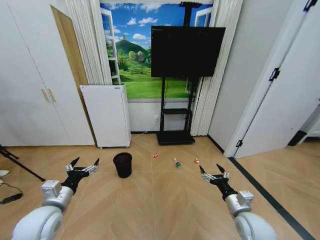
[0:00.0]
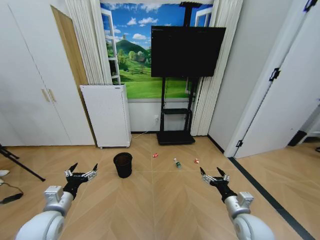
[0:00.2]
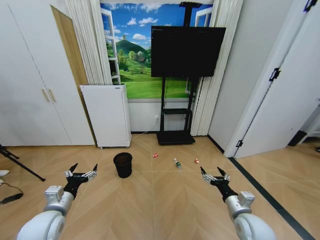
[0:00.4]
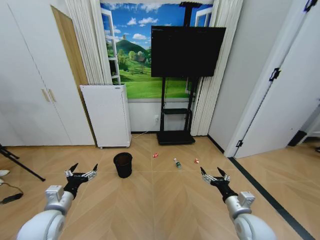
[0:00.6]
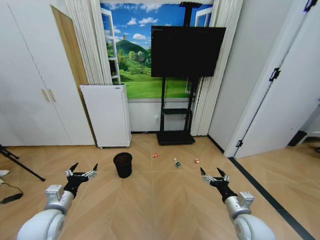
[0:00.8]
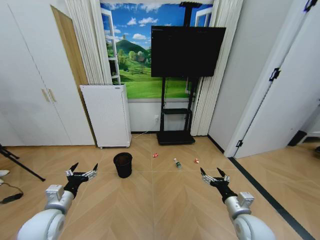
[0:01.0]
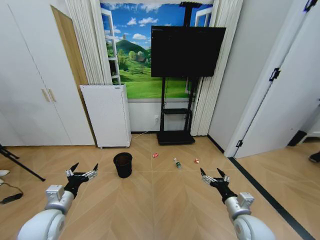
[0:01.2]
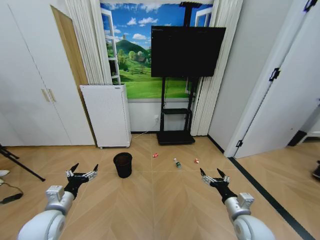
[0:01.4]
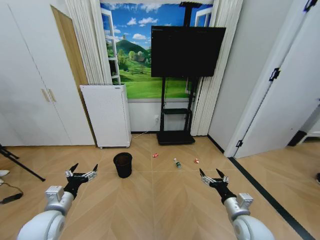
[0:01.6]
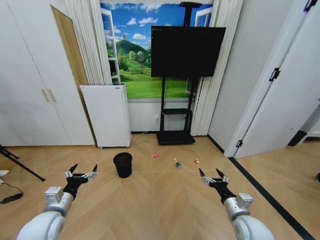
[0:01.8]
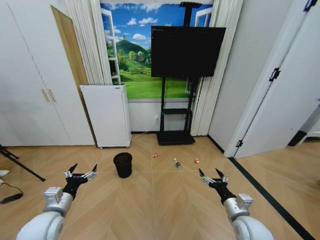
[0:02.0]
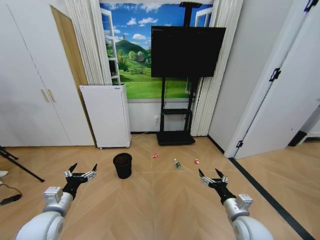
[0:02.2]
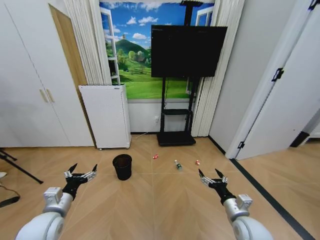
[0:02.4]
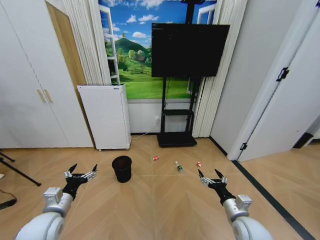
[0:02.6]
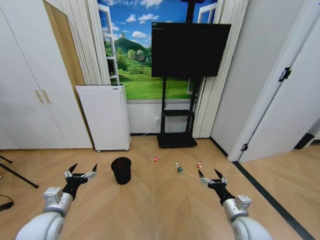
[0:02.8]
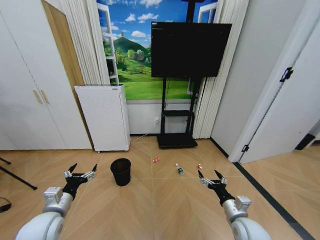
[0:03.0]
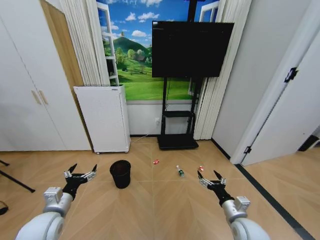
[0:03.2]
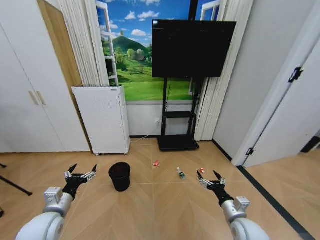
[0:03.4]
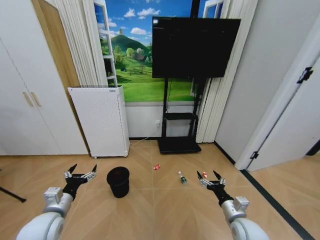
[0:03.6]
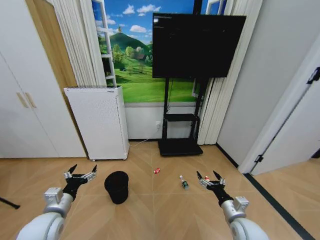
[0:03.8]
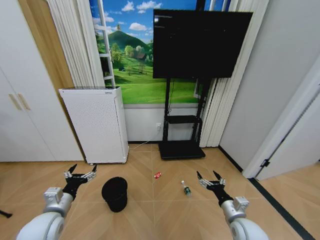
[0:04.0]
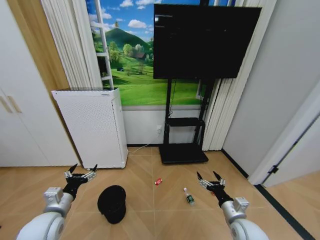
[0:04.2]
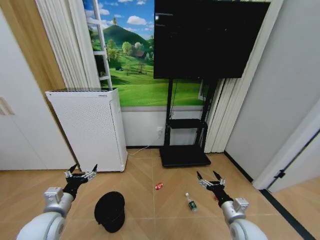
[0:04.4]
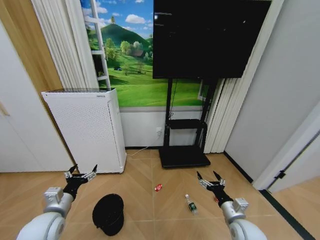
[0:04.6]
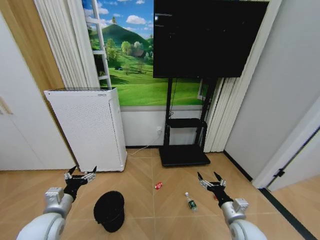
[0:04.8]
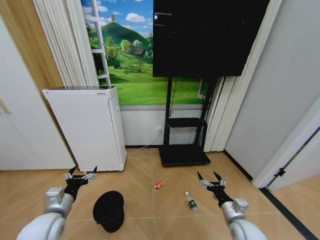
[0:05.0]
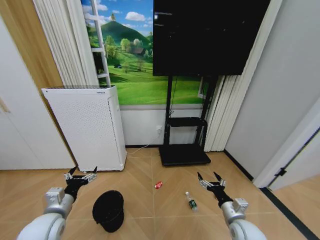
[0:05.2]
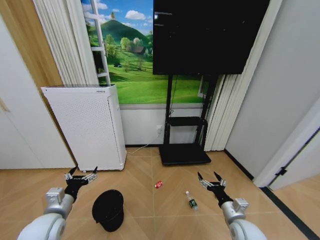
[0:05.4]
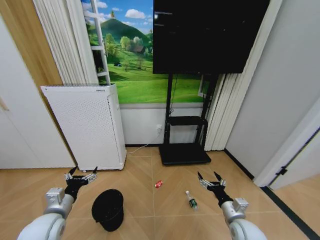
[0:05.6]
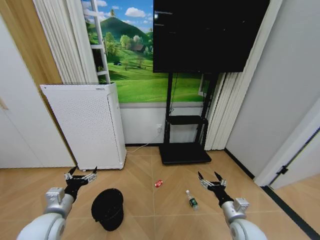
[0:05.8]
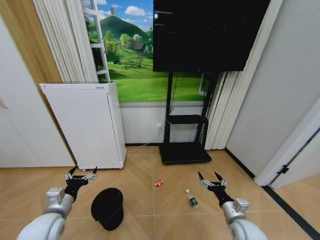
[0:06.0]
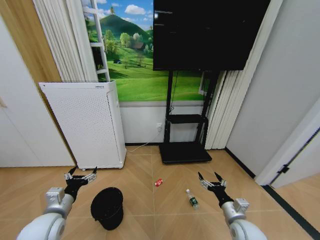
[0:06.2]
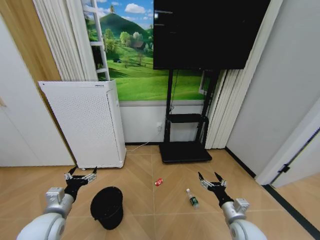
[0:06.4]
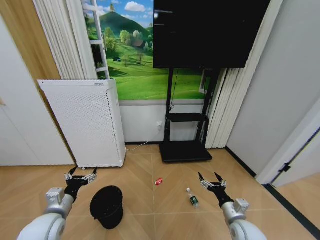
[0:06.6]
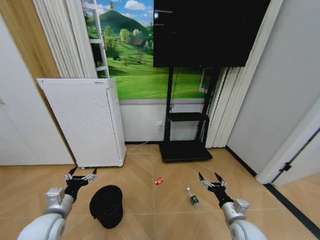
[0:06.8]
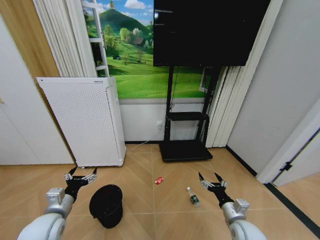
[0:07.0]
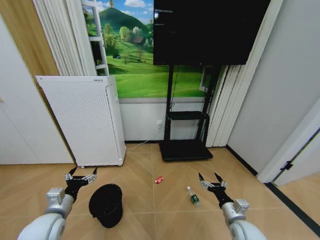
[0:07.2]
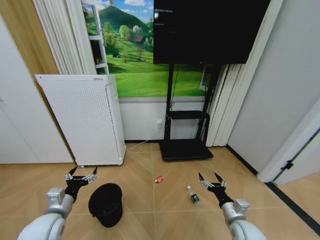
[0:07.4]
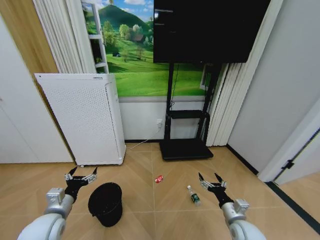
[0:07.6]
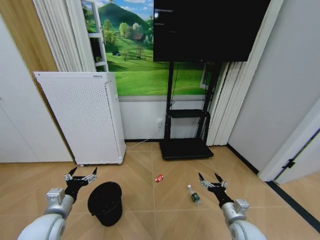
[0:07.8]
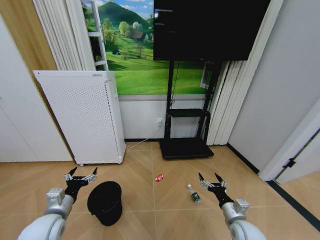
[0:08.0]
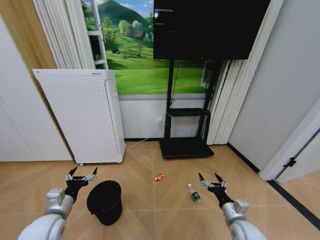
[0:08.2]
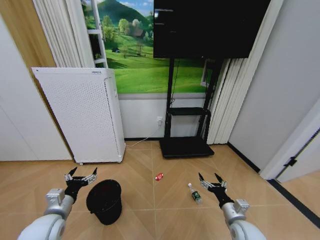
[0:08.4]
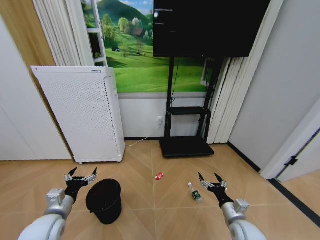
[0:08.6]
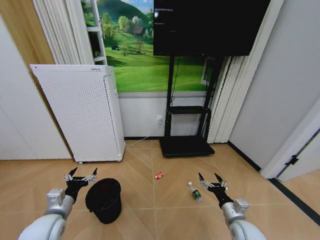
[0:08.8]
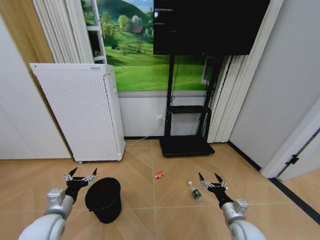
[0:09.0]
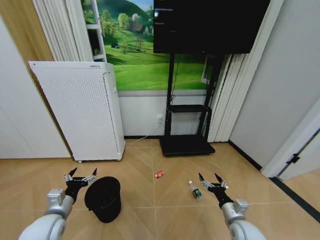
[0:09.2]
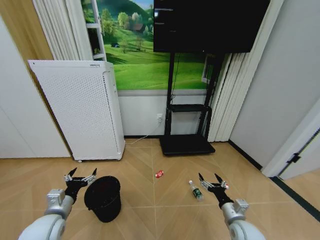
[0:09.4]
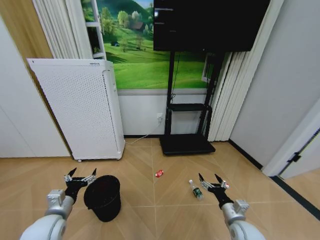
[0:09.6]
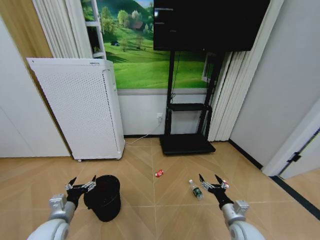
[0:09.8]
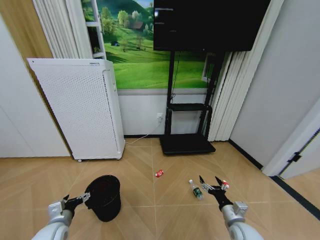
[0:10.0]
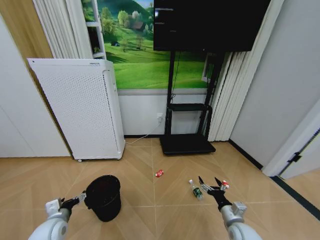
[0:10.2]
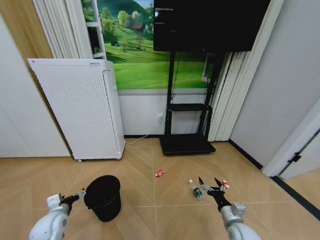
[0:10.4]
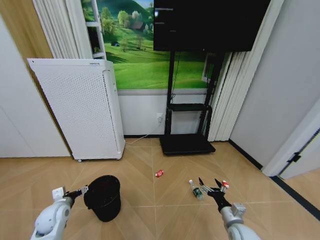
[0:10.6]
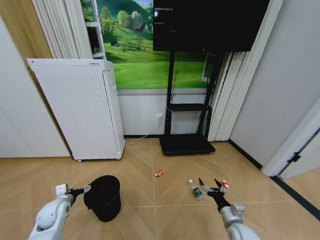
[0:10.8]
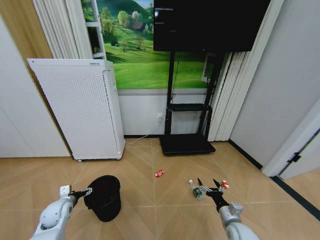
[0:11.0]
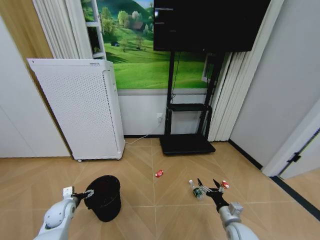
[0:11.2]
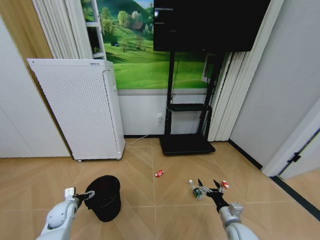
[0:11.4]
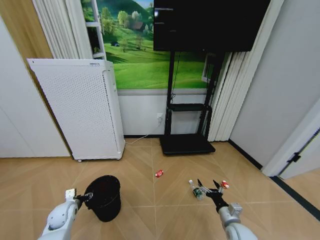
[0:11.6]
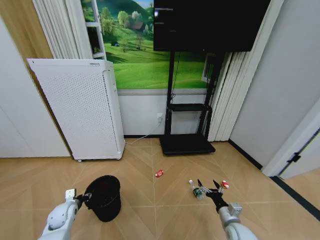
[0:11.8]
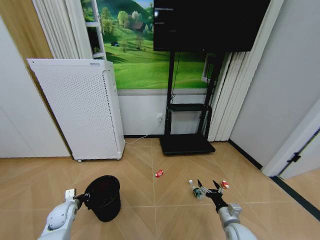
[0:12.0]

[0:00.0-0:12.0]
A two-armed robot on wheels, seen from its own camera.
Task of the whole recording: Pick up the trash bin and place the garbage on the floor into it.
0:04.4 to 0:07.6: Both grippers stay about where they are.
0:07.6 to 0:09.0: Both grippers stay put.
0:09.0 to 0:10.4: The left gripper shifts roughly 5 cm downward.
0:10.4 to 0:12.0: The left gripper moves downward and forward, about 10 cm, and closes its fingers.

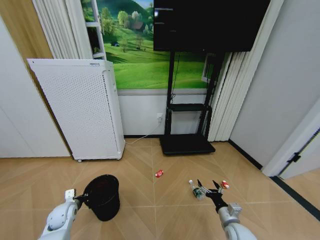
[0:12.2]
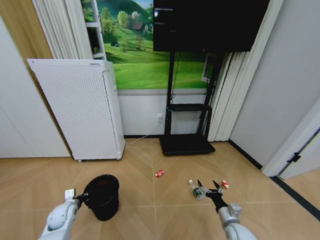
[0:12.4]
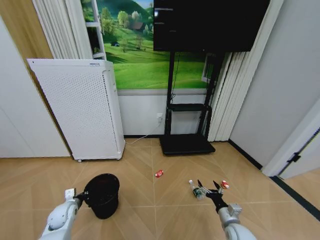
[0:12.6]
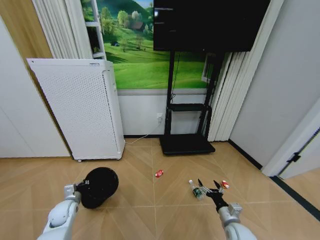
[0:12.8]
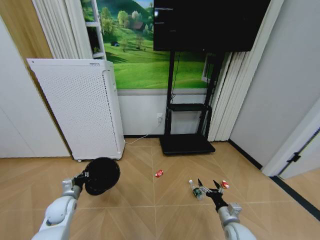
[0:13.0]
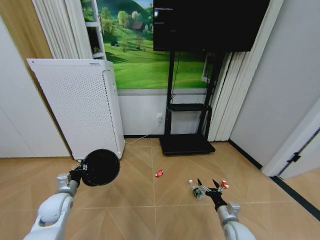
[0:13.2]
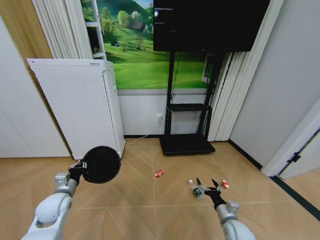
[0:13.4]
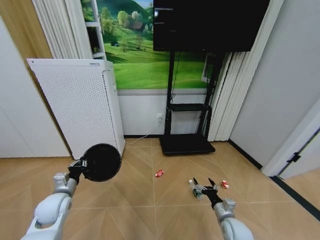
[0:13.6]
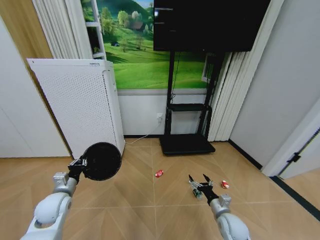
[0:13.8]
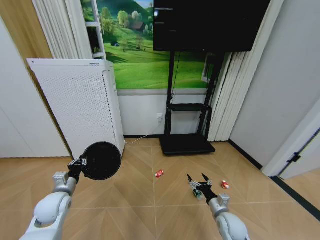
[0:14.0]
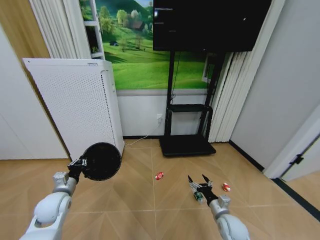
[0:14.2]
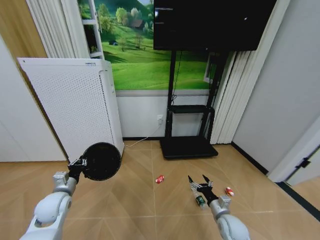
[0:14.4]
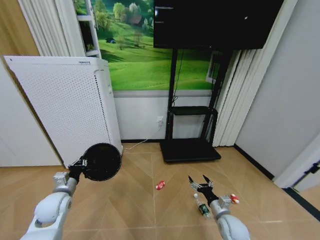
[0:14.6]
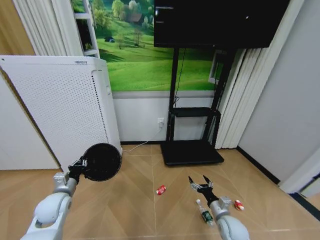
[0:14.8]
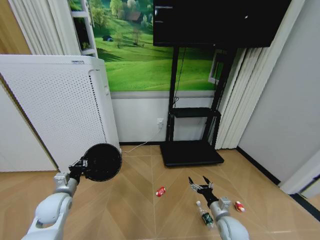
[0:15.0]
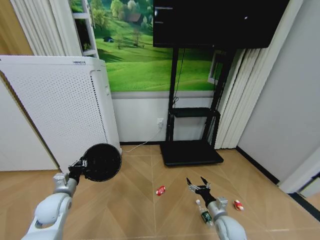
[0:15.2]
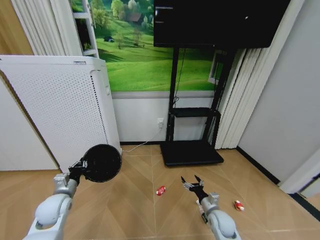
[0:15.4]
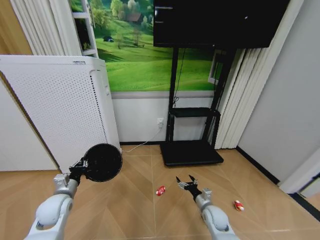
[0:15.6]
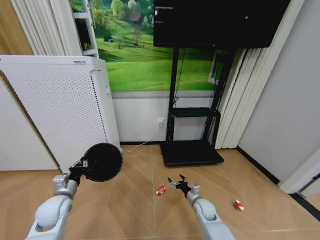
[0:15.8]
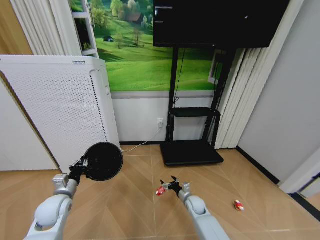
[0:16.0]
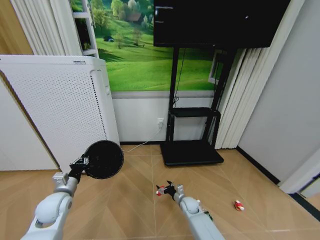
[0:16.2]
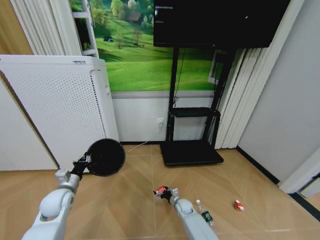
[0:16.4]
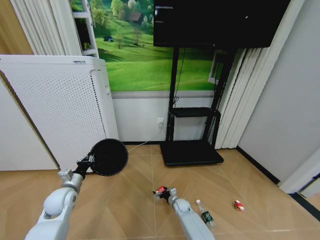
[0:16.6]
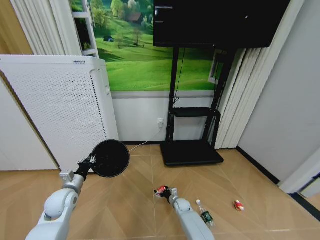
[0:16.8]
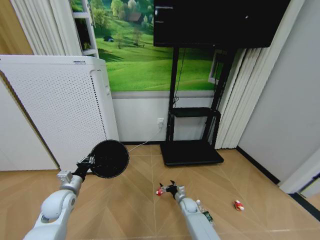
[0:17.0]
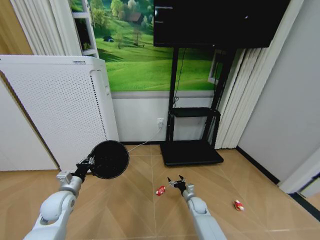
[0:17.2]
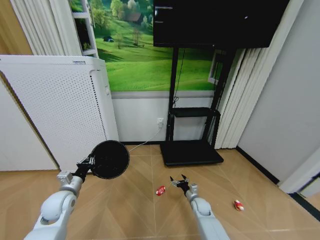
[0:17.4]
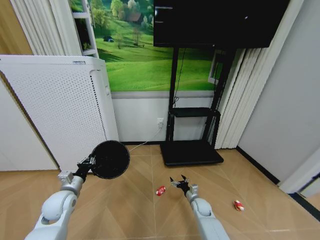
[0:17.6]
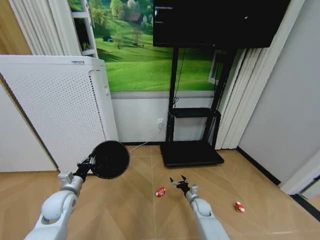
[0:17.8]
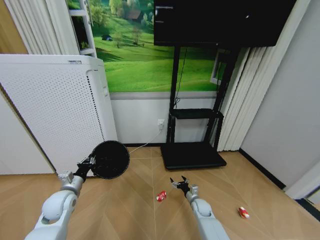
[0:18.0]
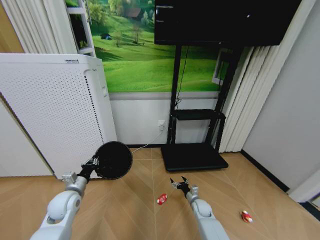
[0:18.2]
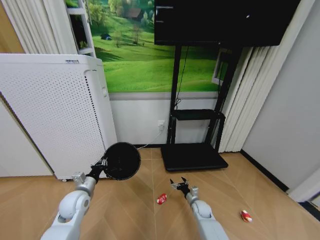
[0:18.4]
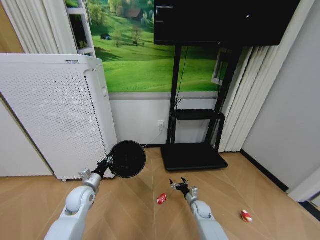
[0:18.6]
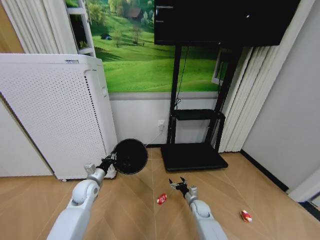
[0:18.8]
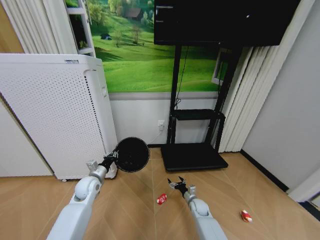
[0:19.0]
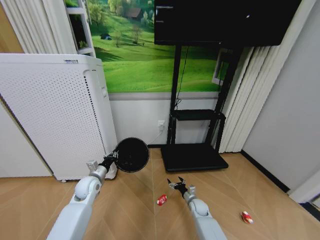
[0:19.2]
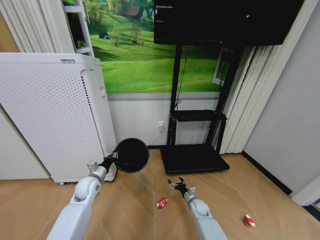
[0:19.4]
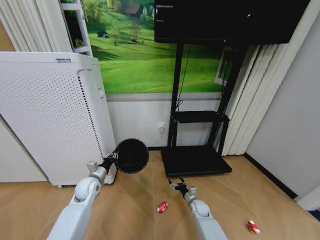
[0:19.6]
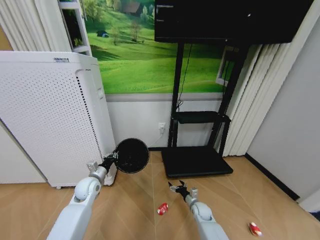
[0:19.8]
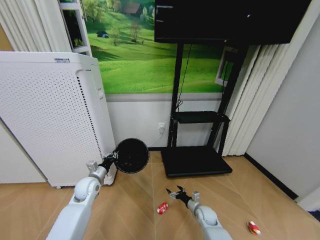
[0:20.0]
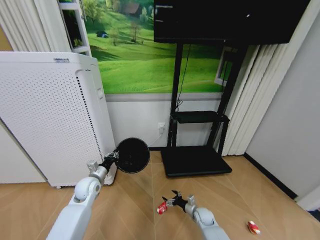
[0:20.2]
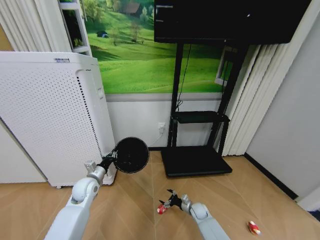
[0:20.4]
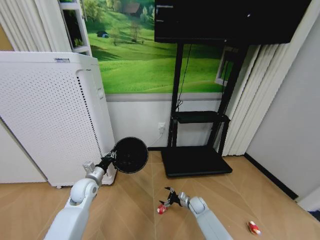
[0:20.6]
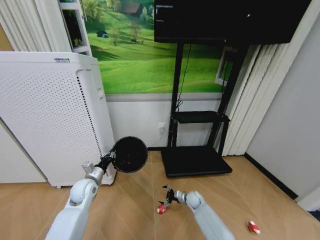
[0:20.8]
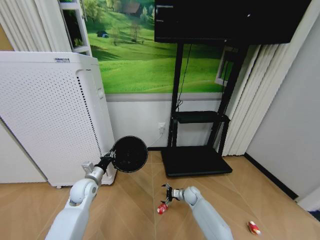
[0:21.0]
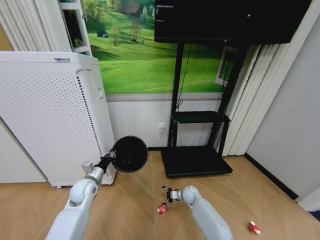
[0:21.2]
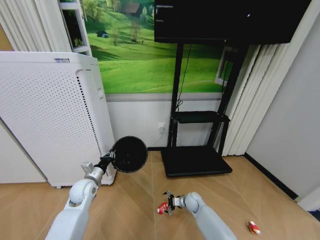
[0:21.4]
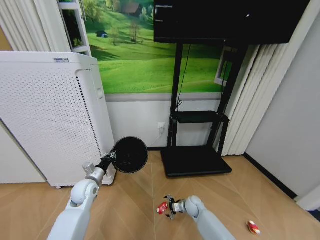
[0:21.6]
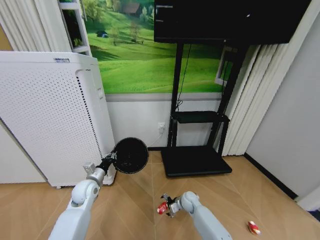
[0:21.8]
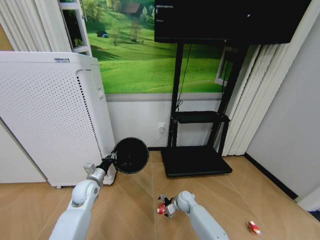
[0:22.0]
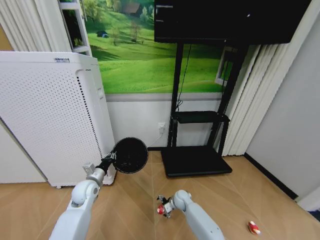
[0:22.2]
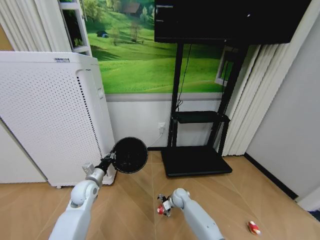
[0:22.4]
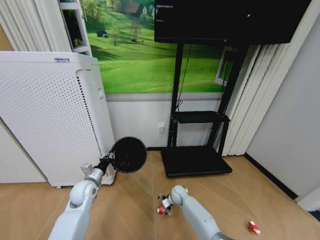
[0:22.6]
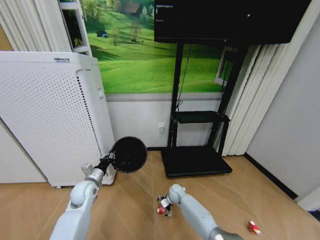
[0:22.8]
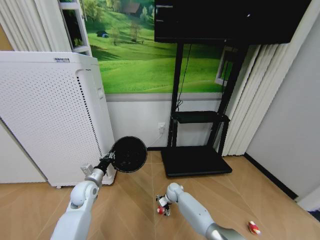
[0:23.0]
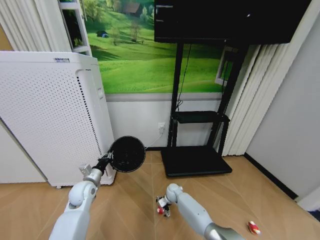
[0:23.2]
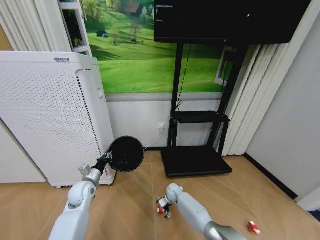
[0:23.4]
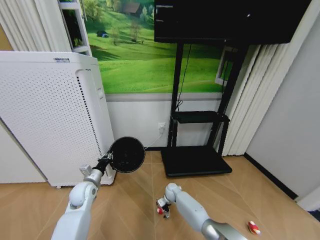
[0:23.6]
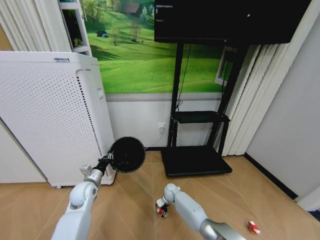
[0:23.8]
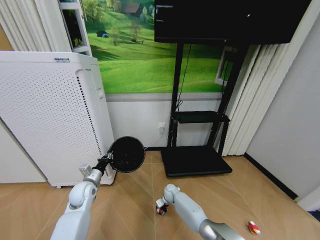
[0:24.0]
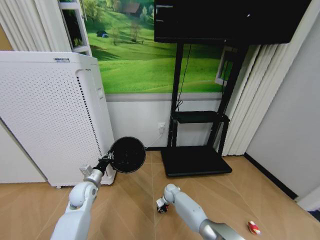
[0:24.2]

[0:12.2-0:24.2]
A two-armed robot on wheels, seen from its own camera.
Task of the whole recording: Pick up the trash bin and place the garbage on the floor into it.
0:12.2 to 0:13.8: The left gripper travels upward by about 10 cm.
0:15.2 to 0:16.6: The right gripper travels downward, forward and to the left by approximately 25 cm.
0:16.6 to 0:18.2: The right gripper travels to the right and upward by roughly 10 cm.
0:18.2 to 0:19.8: The left gripper shifts some 5 cm forward.
0:19.8 to 0:21.2: The right gripper shifts roughly 10 cm forward.
0:21.2 to 0:22.6: The right gripper shifts approximately 5 cm to the left.
0:22.6 to 0:24.2: The right gripper closes its fingers.
